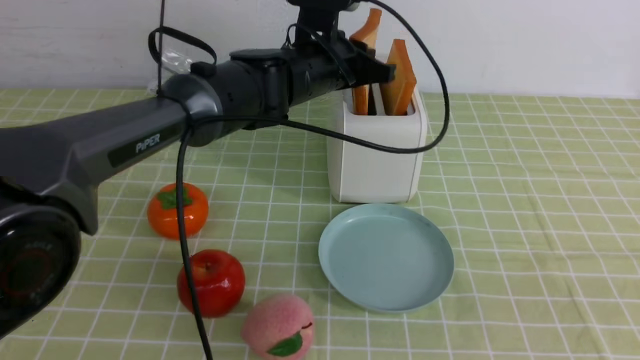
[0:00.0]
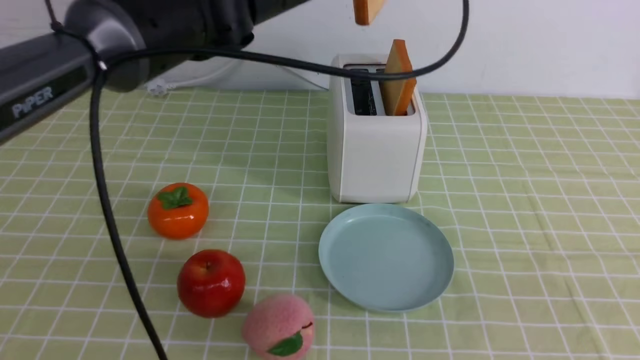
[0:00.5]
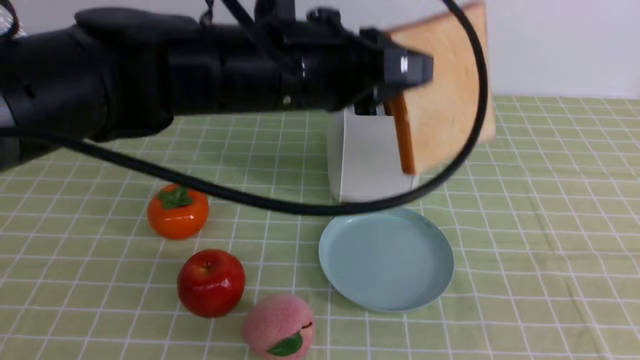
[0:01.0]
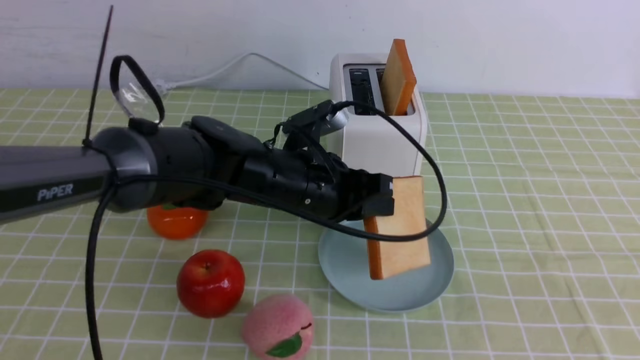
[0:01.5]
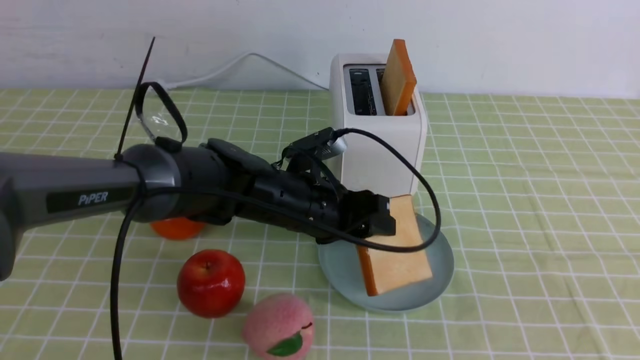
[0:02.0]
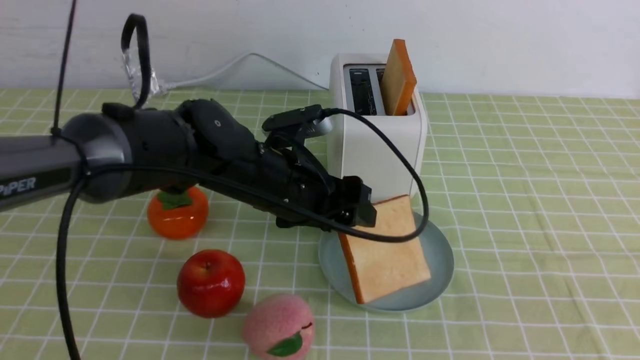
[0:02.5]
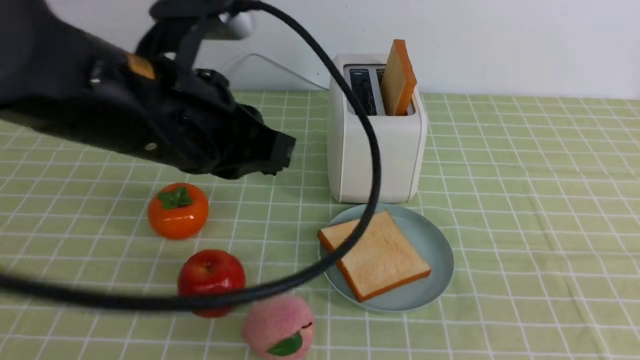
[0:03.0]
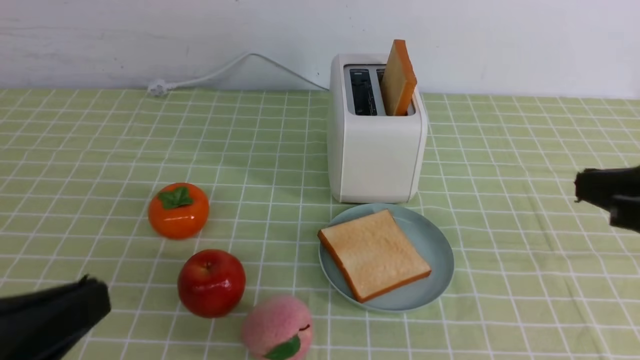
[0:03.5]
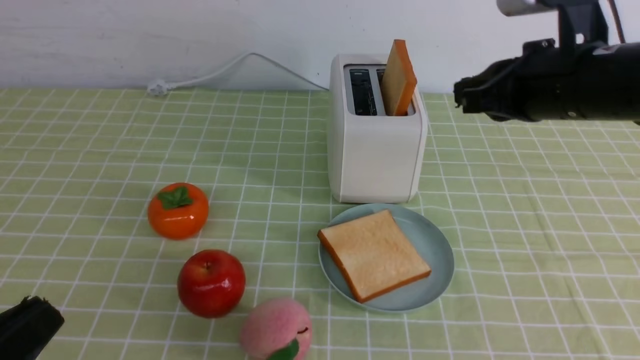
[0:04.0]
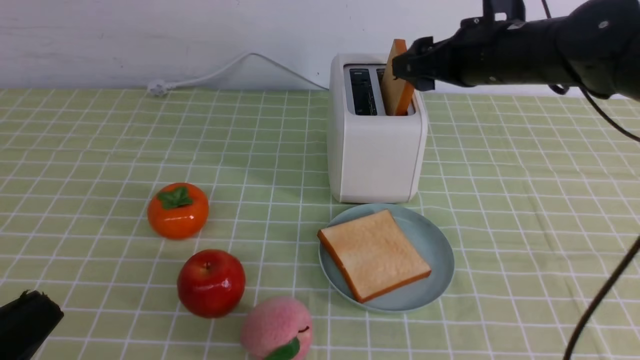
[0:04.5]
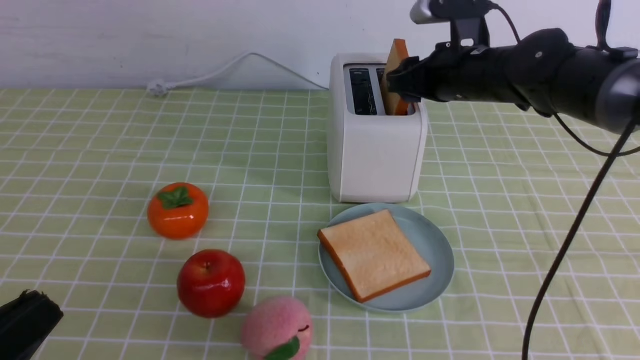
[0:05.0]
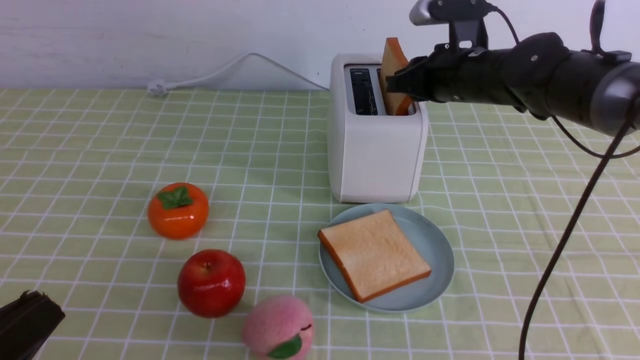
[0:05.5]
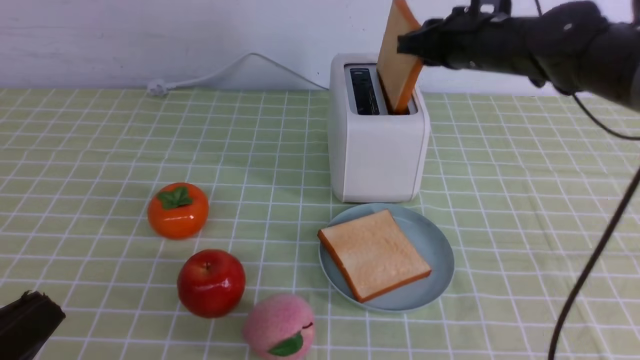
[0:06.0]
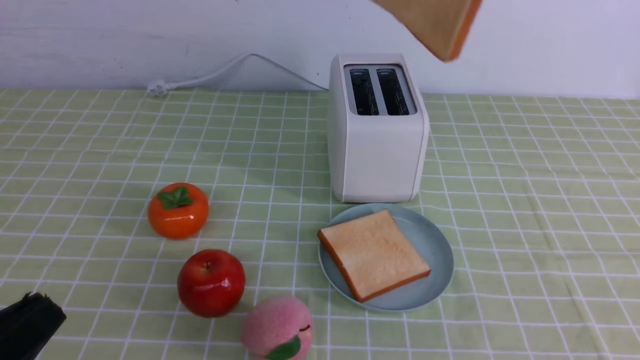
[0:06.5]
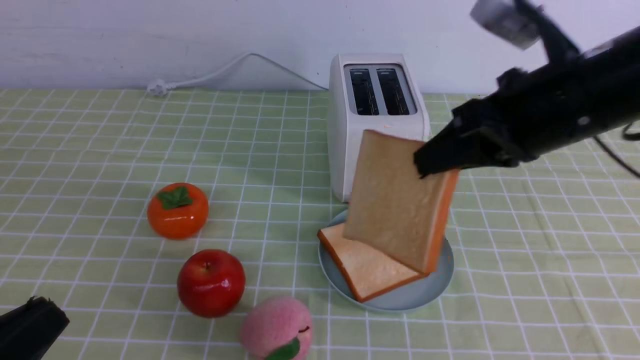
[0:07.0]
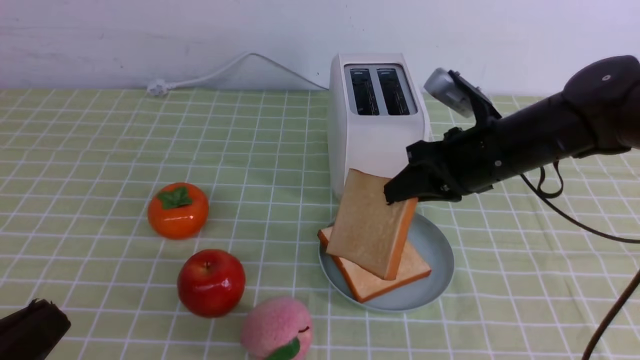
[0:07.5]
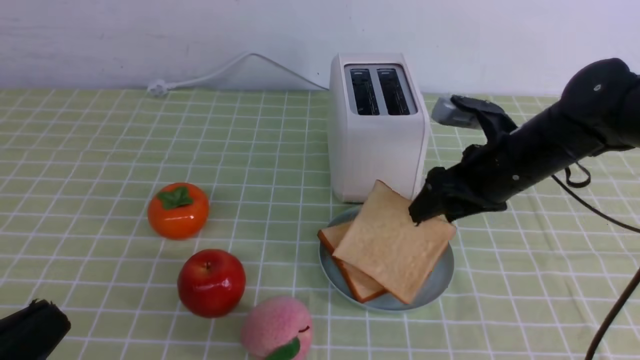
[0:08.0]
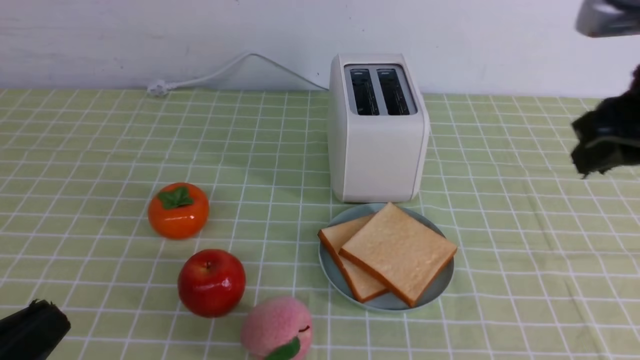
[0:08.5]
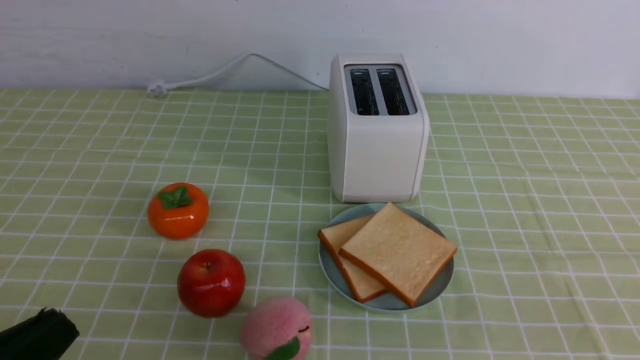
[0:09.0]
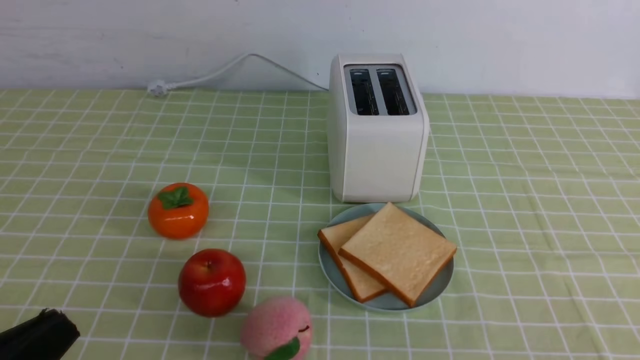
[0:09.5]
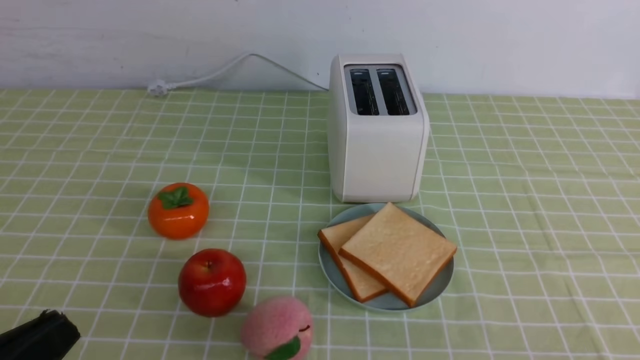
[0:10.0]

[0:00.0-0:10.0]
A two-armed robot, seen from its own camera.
Task of the whole recording: take toasted bread from bread machine on green coffee tablecloth place on plate.
Step, 0:00.5 to 0:02.5: use the left arm to put a slice of bread into the empty plate.
Step, 0:03.0 to 0:06.0: use the right arm to take out a slice of bread.
Step, 0:06.5 to 0:08.0: use the right arm to put a slice of bread into the plate.
0:00.0 to 0:02.0: The left gripper shifts roughly 15 cm backward and downward, and opens up.
0:02.0 to 0:04.0: The left gripper goes approximately 35 cm backward and to the left, and closes. The right gripper is displaced forward by about 25 cm.
0:04.0 to 0:06.0: The right gripper heads forward, covering roughly 10 cm, and opens, then closes once more.
0:06.0 to 0:08.0: The right gripper goes roughly 10 cm downward and backward, and opens up.
0:08.0 to 0:10.0: The right gripper shifts about 35 cm backward, and closes up.

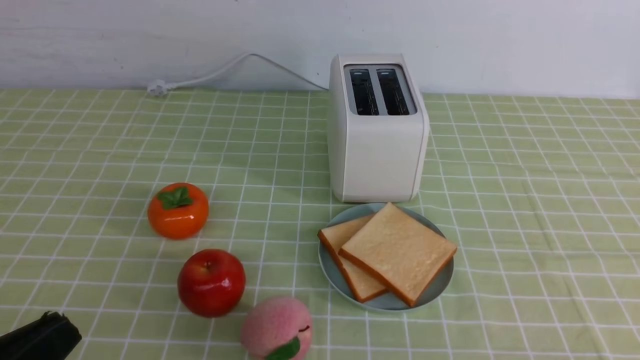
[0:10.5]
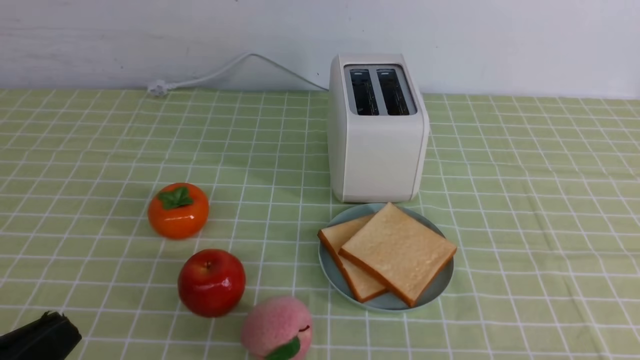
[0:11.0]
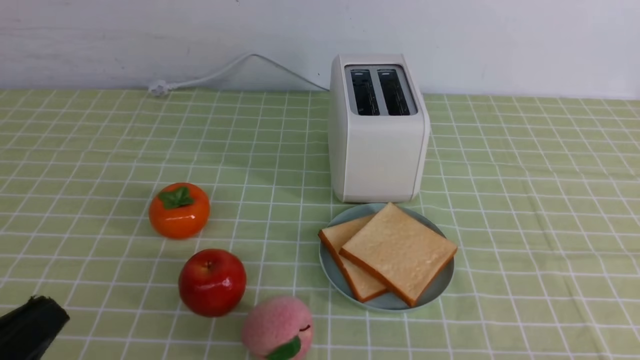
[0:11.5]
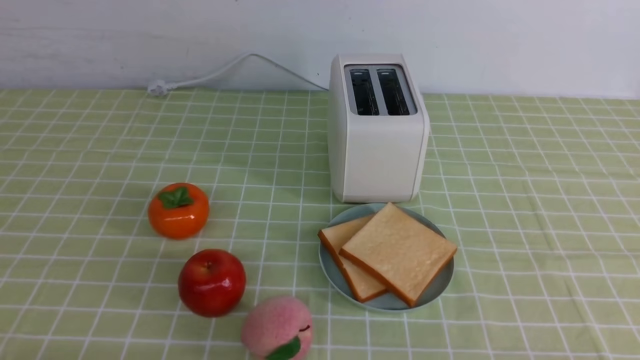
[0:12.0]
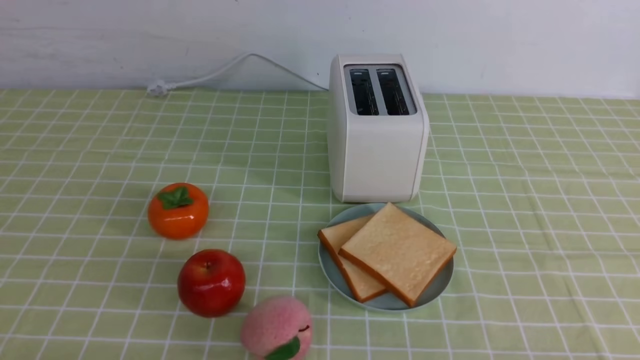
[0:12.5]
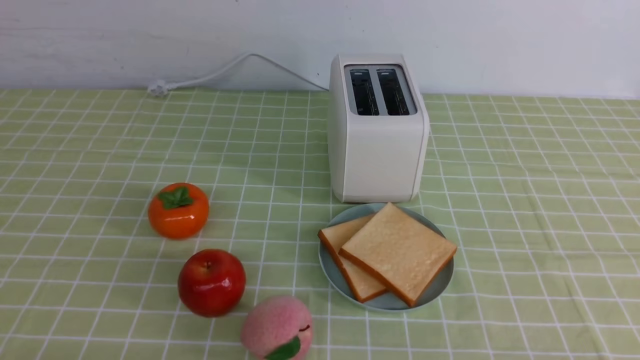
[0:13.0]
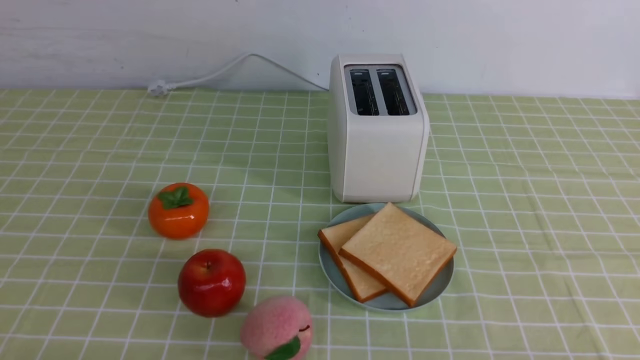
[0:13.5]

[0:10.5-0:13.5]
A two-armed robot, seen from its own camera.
Task of the whole recording: take toasted bread from bread machine on green coffee tablecloth place on plate.
0:10.5 to 0:12.0: The left gripper moves downward, roughly 10 cm.
